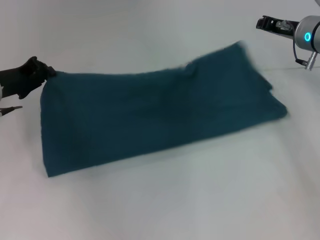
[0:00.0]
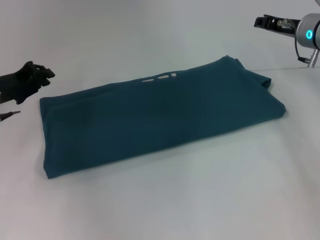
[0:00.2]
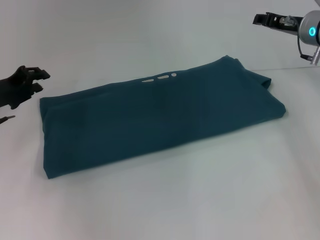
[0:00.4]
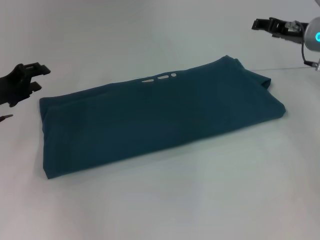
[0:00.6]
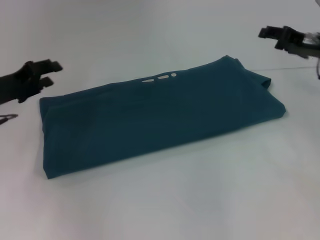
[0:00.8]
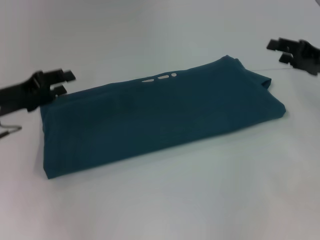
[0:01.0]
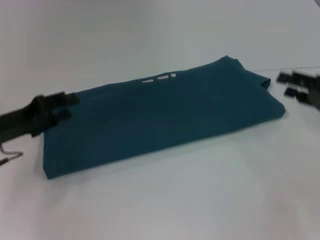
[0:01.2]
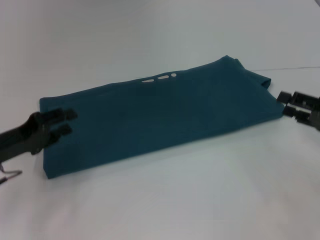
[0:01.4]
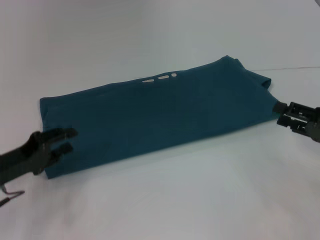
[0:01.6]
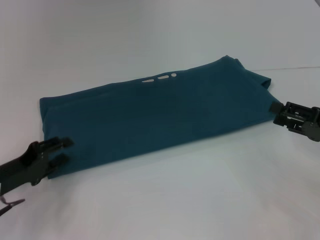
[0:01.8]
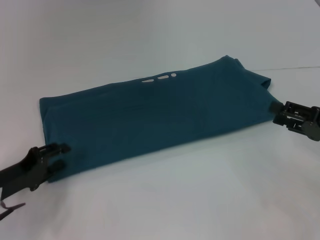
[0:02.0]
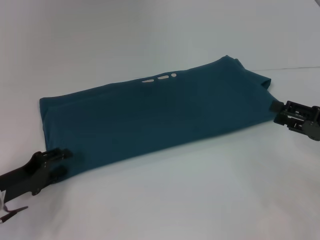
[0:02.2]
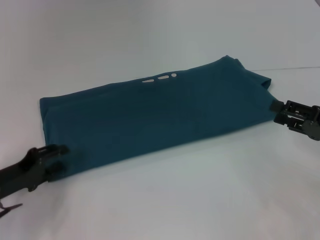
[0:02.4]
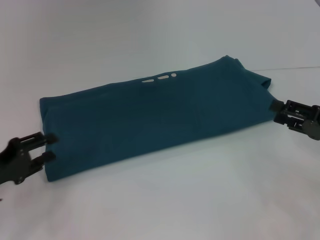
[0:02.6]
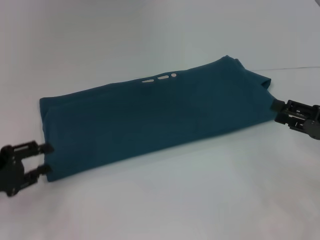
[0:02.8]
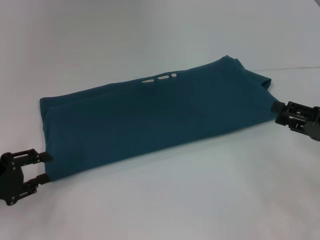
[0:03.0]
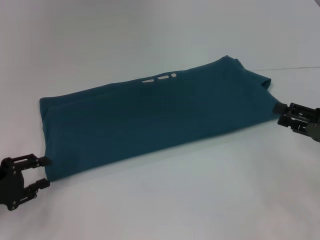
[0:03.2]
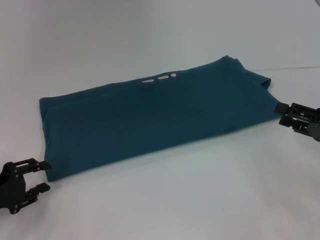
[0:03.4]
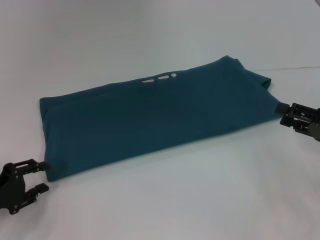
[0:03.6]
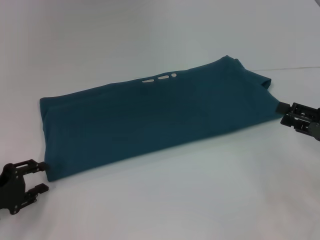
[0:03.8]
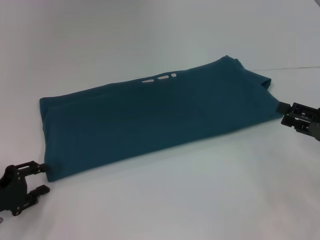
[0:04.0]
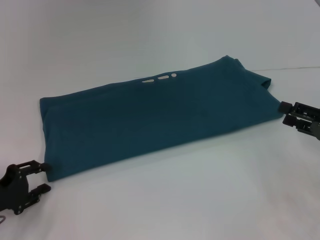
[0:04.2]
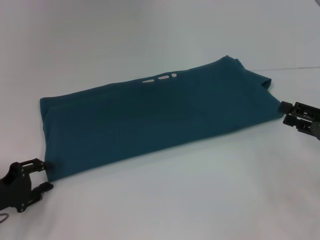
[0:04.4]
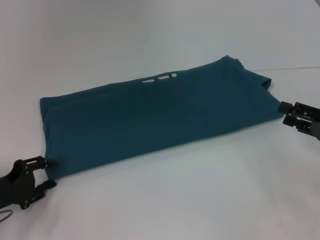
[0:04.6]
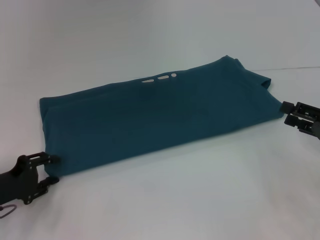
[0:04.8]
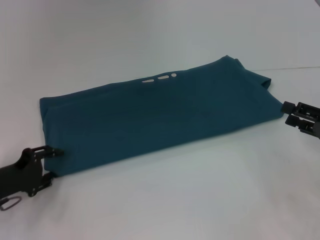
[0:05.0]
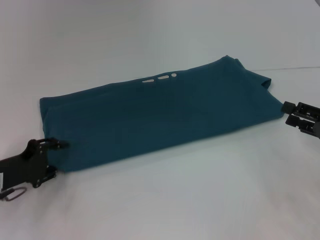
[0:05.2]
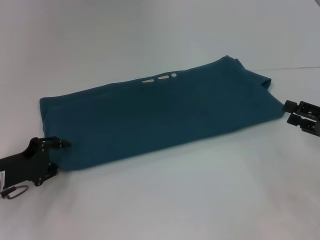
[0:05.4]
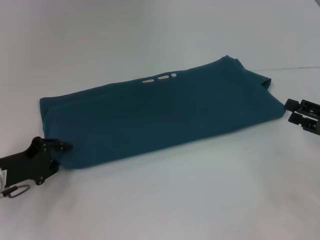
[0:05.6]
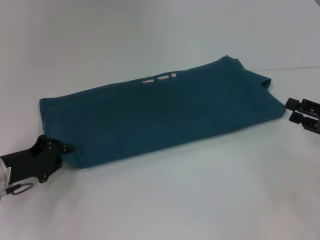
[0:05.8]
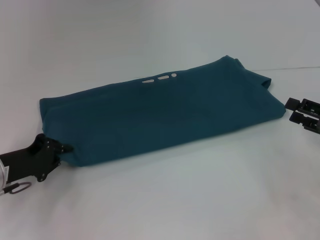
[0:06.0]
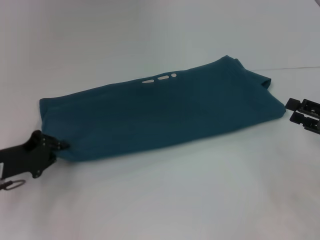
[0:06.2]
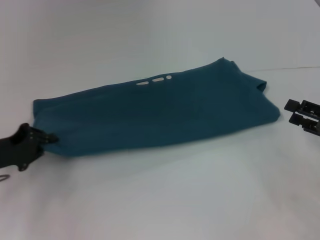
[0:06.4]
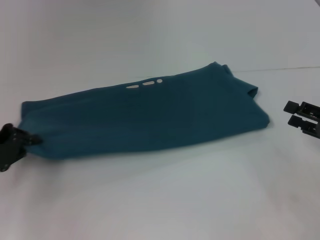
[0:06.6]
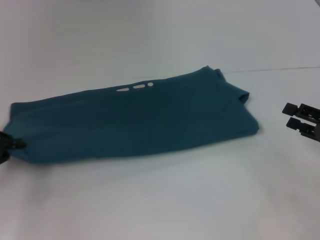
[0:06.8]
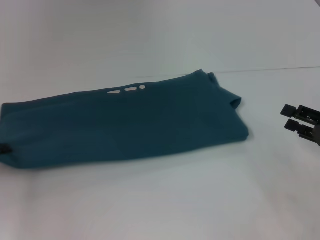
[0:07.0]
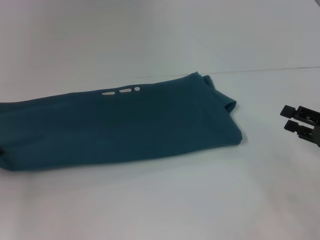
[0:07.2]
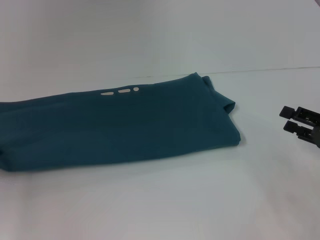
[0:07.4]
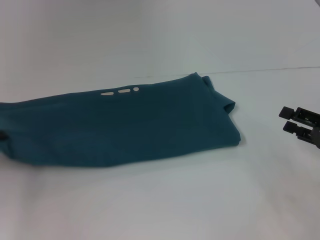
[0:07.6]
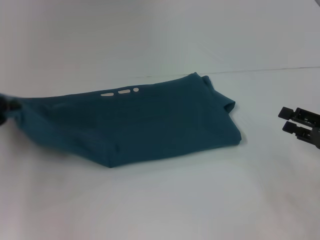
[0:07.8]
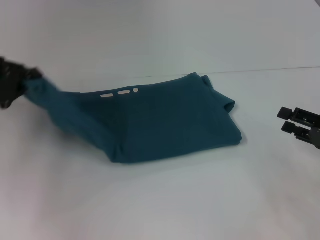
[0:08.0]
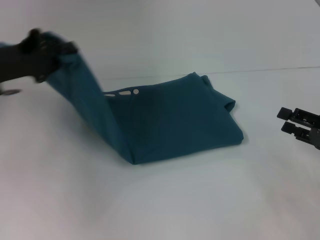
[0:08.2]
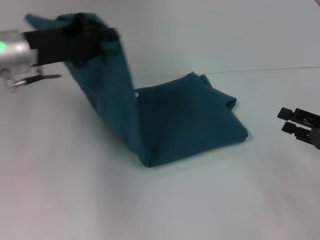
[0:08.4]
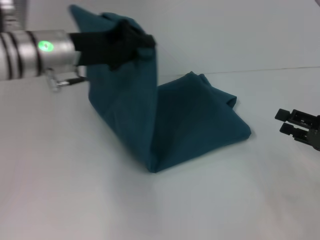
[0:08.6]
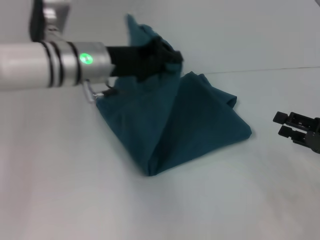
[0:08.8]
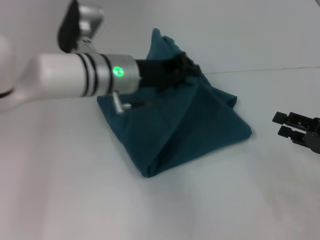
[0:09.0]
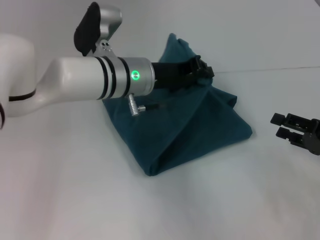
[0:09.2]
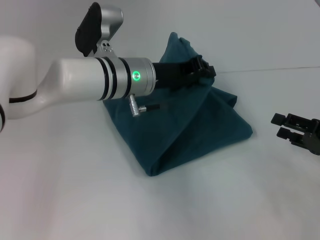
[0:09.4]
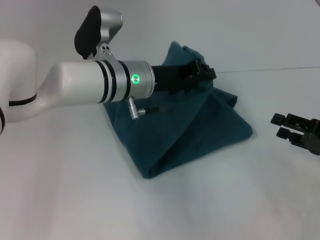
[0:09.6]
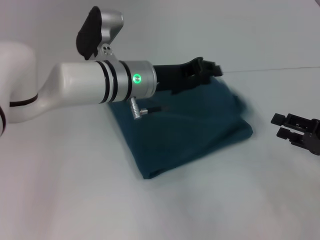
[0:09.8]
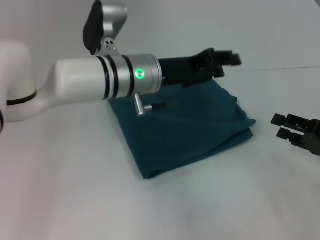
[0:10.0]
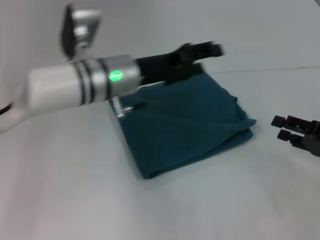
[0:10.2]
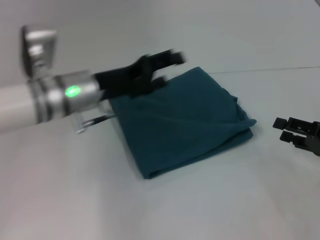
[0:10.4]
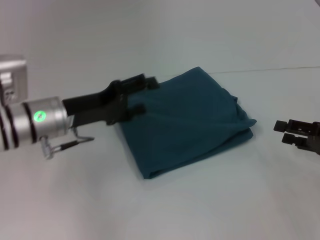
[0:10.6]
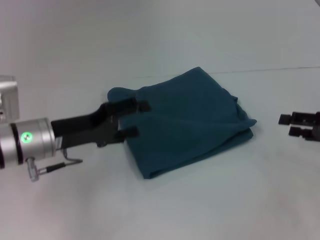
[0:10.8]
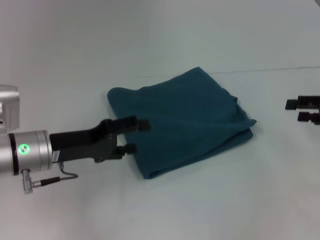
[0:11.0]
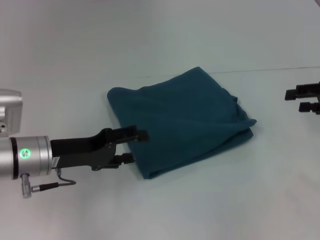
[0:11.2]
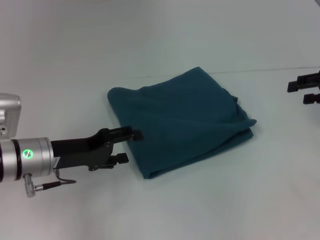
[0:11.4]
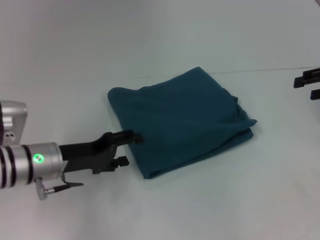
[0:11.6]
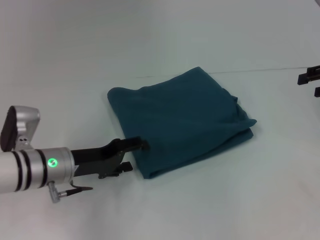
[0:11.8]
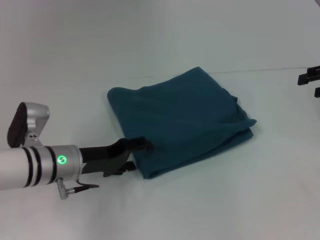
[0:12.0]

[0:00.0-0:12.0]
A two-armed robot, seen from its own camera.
Step, 0:00.0 to 0:10.0: Fold the clothes to the left.
0:00.0 to 0:01.6: The left gripper goes about 15 cm backward and downward, and opens. The right gripper shifts roughly 20 cm backward and to the right, and opens its fingers.
0:01.6 to 0:03.0: The grippers move only a little.
0:03.0 to 0:04.4: The grippers move only a little.
0:04.4 to 0:06.0: The left gripper changes place by roughly 5 cm, and closes its fingers.
0:06.0 to 0:07.6: The left gripper heads to the left and upward, covering some 10 cm.
0:07.6 to 0:09.0: The left gripper goes approximately 30 cm to the right.
0:09.0 to 0:10.4: The left gripper goes approximately 5 cm to the left, and opens.
0:10.4 to 0:12.0: The left gripper shifts approximately 10 cm downward; the right gripper moves upward and forward, approximately 15 cm.

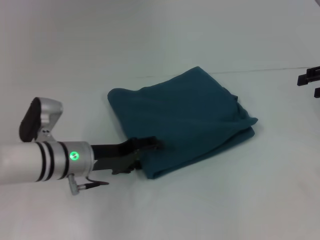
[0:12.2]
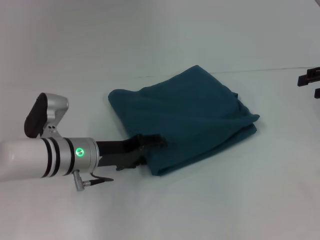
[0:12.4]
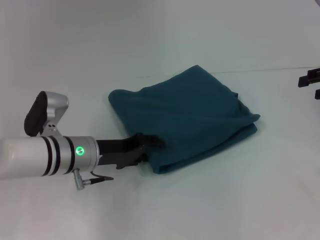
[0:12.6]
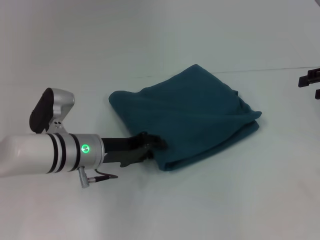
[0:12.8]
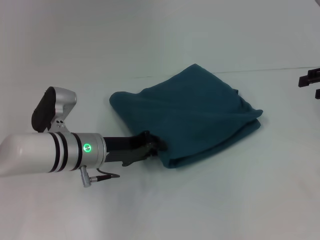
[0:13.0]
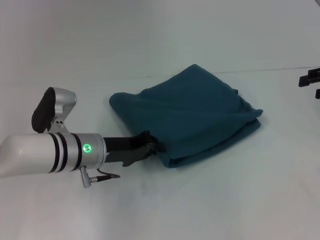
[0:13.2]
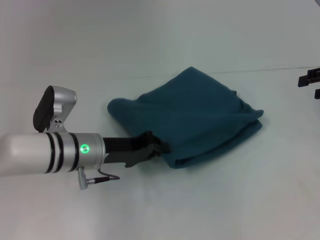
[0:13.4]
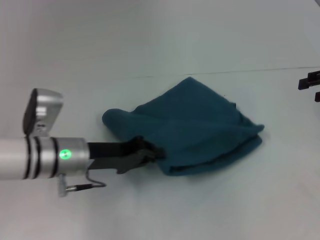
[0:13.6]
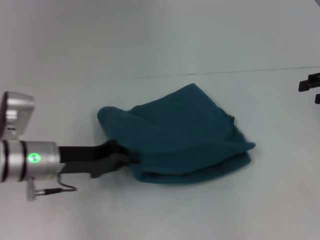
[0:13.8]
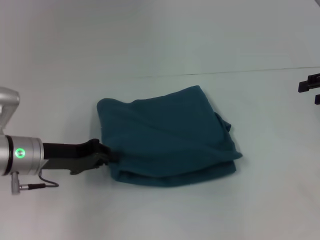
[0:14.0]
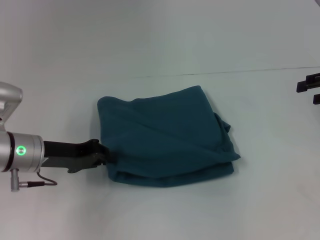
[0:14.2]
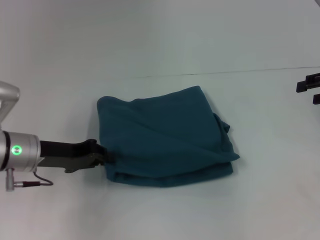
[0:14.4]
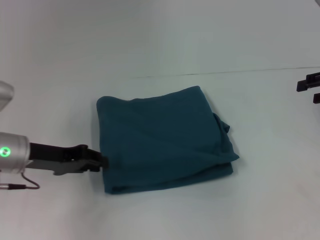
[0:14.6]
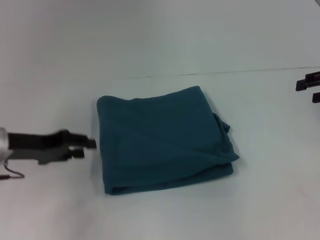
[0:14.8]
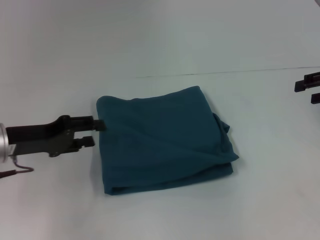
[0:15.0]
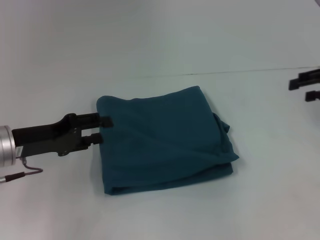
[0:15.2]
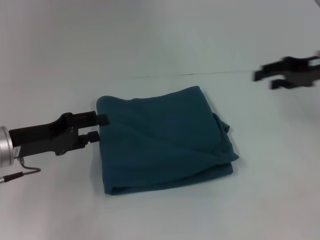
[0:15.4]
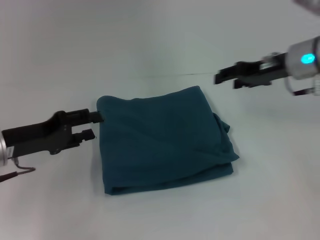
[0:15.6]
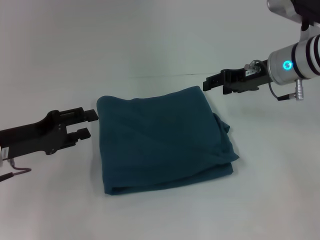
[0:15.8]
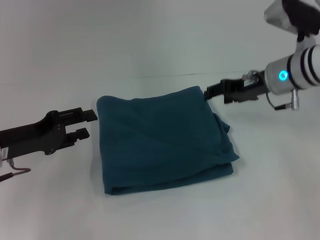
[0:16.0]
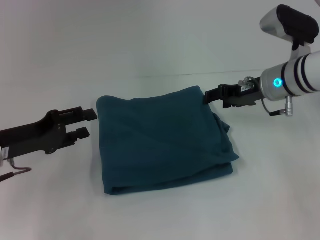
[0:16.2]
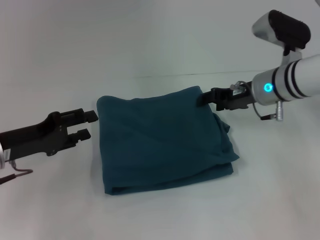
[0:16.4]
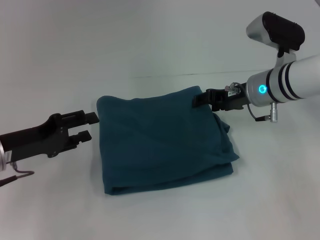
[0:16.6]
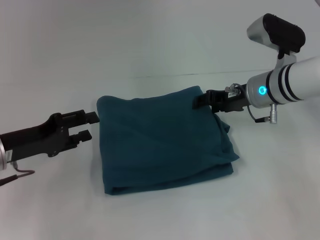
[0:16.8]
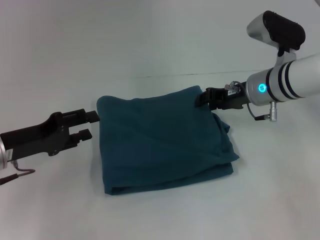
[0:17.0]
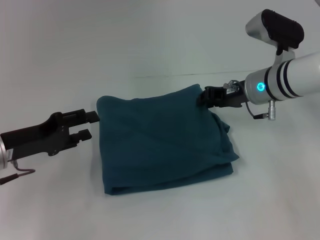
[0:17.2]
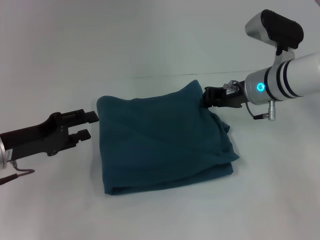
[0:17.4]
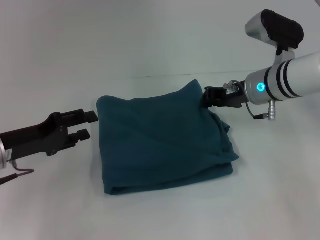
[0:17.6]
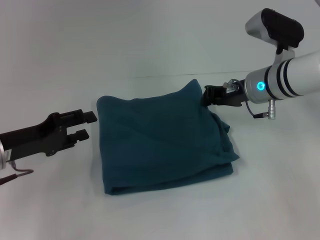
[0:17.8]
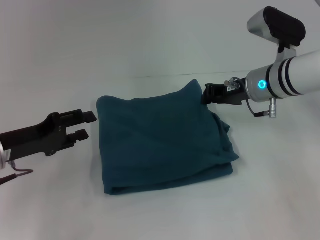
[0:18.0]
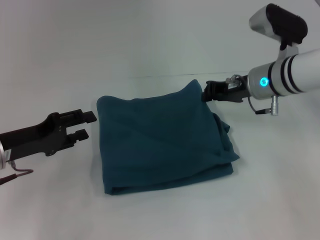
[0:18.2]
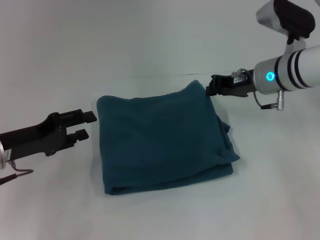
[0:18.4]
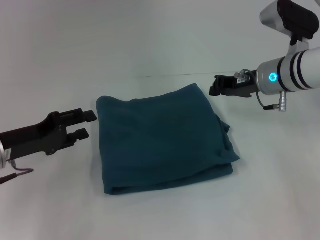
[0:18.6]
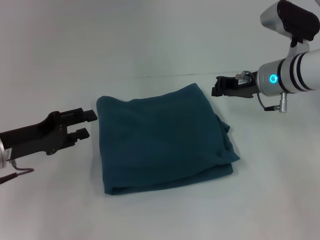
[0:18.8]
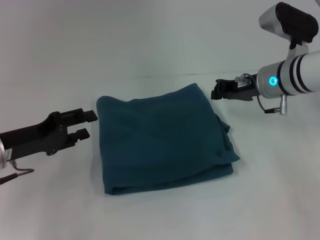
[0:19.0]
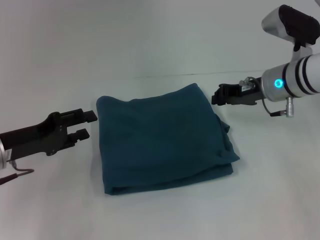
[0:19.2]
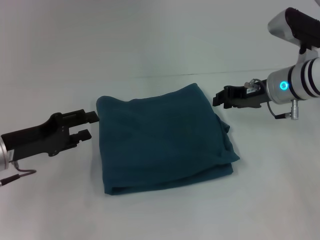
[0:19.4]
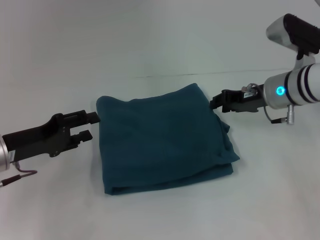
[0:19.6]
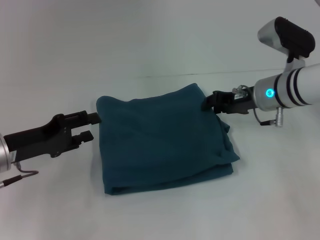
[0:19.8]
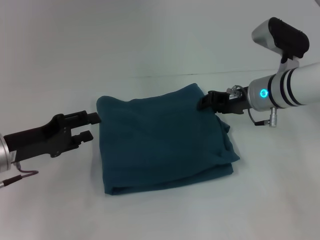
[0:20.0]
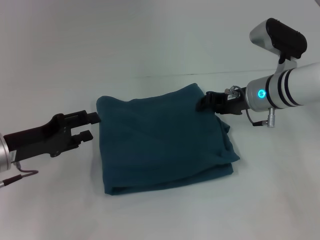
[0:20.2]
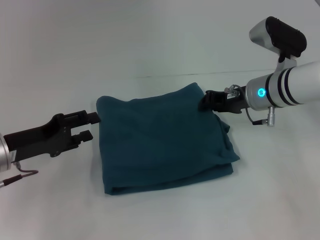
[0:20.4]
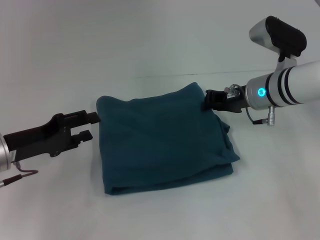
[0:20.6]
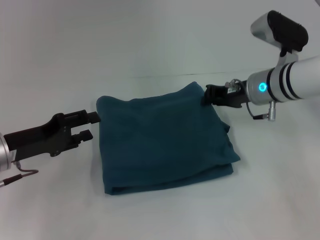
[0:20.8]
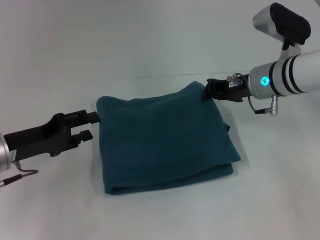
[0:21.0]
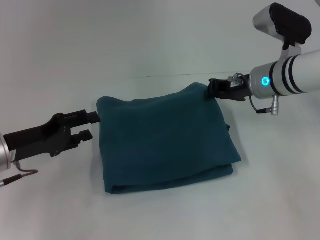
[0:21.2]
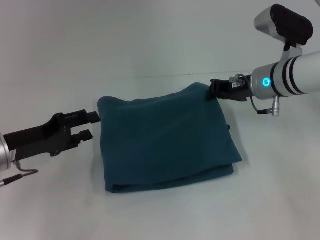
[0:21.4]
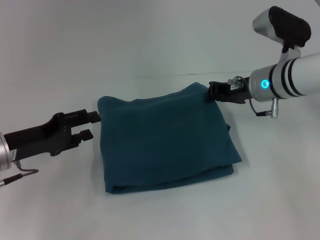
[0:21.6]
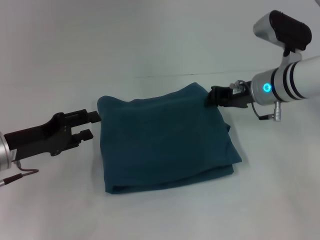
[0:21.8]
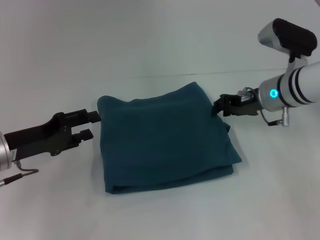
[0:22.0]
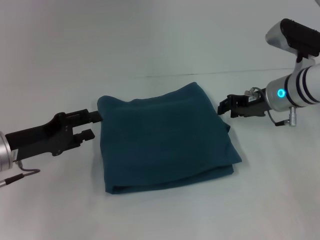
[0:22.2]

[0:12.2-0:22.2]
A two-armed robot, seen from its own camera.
0:12.2 to 0:13.6: The left gripper closes up.
0:13.6 to 0:15.0: The left gripper shifts some 10 cm to the left, and opens up.
0:15.0 to 0:16.4: The right gripper moves to the left, about 20 cm.
0:16.4 to 0:18.0: The right gripper closes up.
0:18.0 to 0:22.2: The grippers make only small movements.
